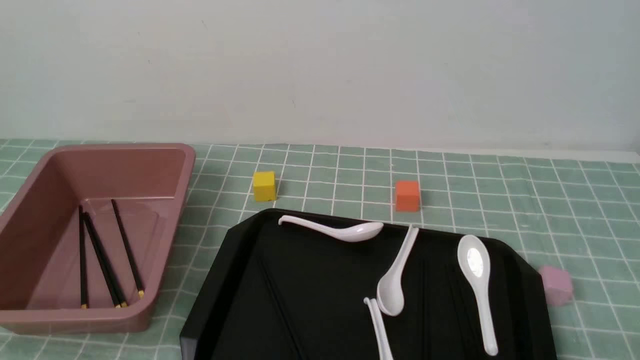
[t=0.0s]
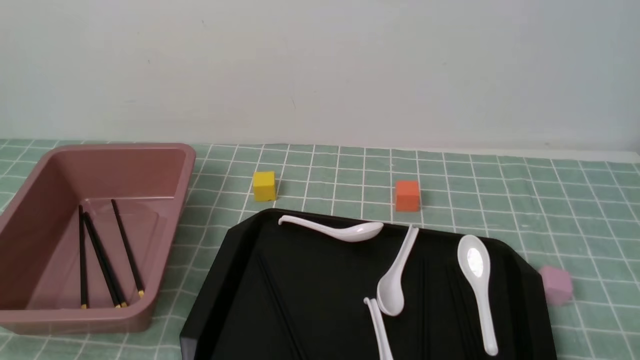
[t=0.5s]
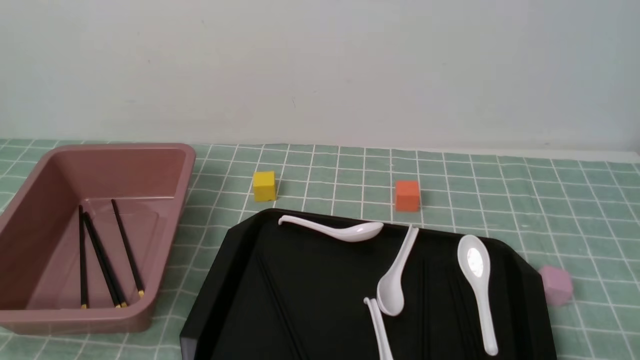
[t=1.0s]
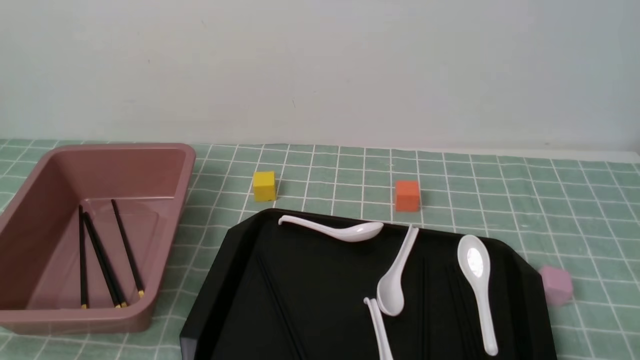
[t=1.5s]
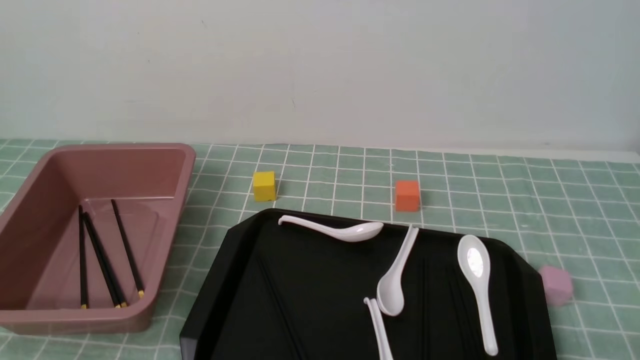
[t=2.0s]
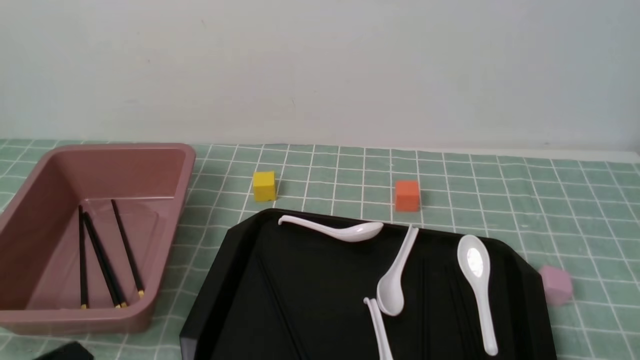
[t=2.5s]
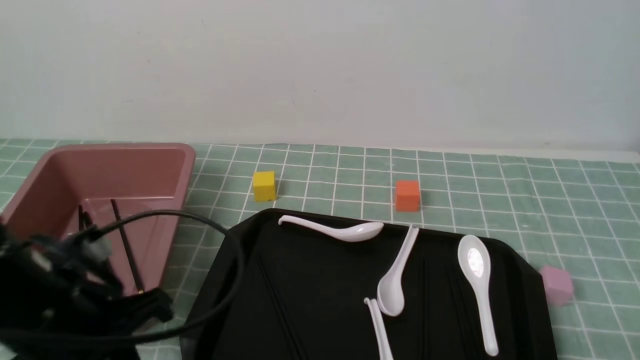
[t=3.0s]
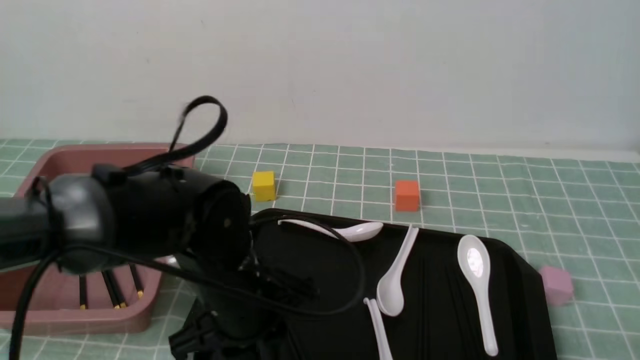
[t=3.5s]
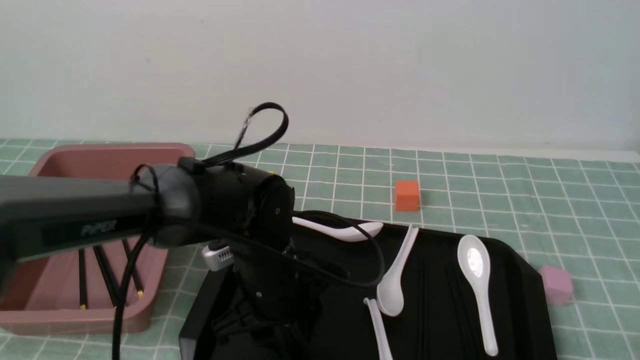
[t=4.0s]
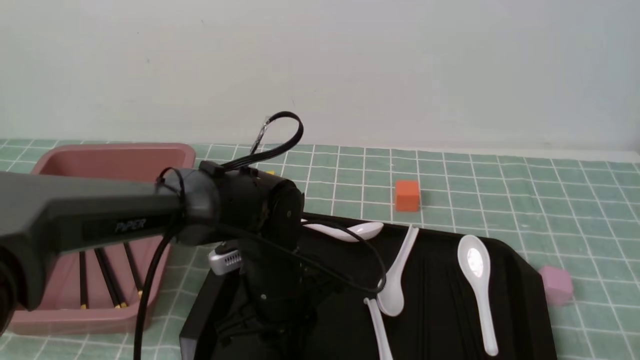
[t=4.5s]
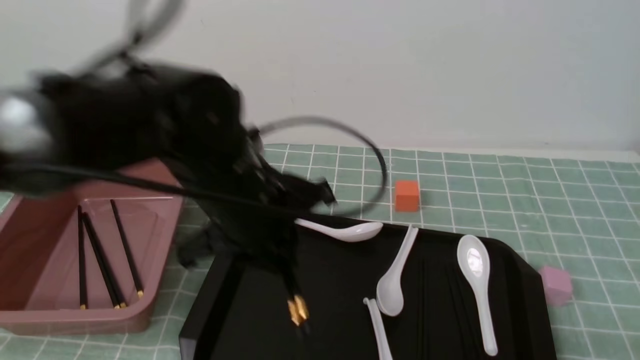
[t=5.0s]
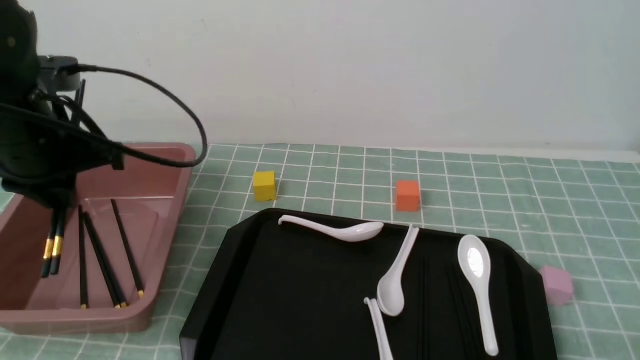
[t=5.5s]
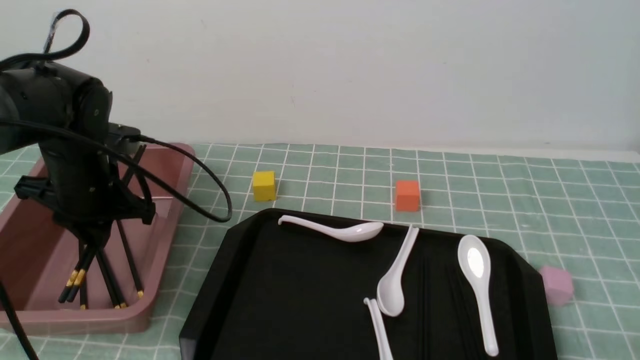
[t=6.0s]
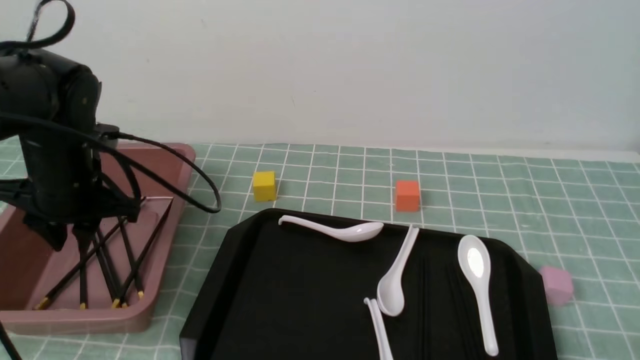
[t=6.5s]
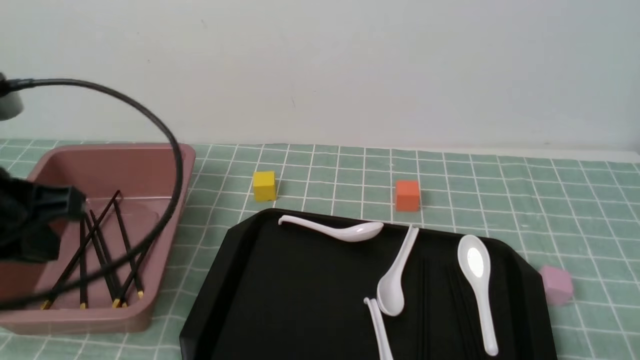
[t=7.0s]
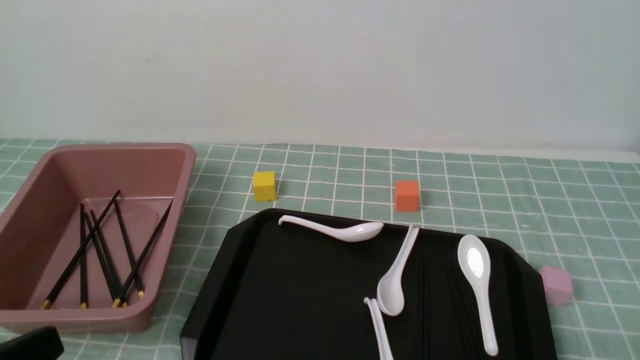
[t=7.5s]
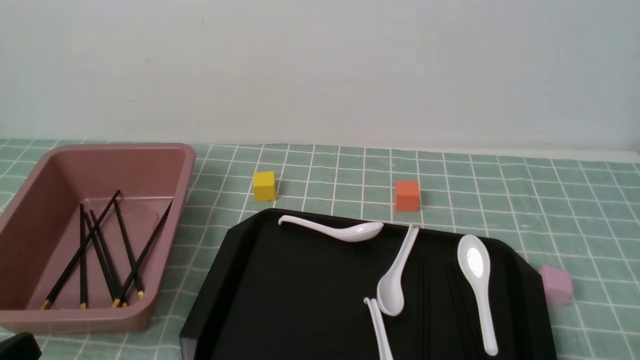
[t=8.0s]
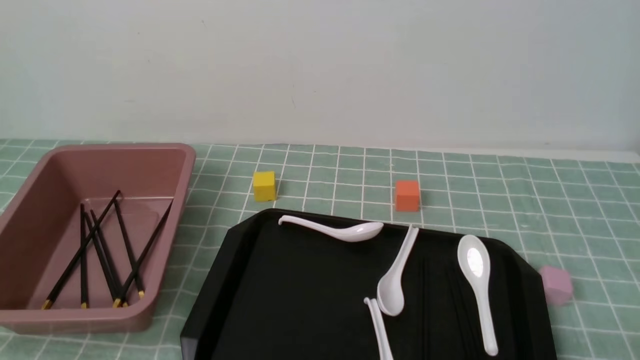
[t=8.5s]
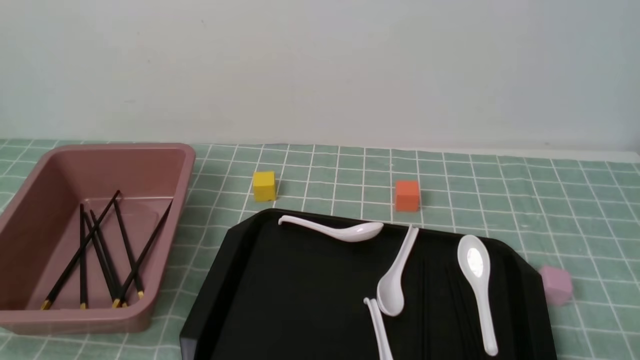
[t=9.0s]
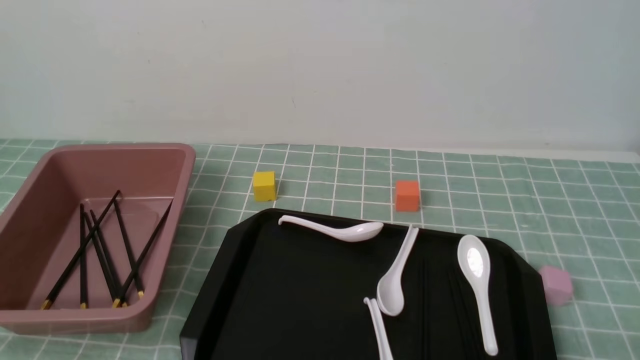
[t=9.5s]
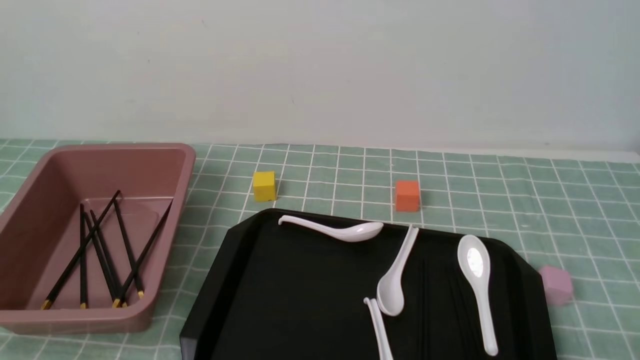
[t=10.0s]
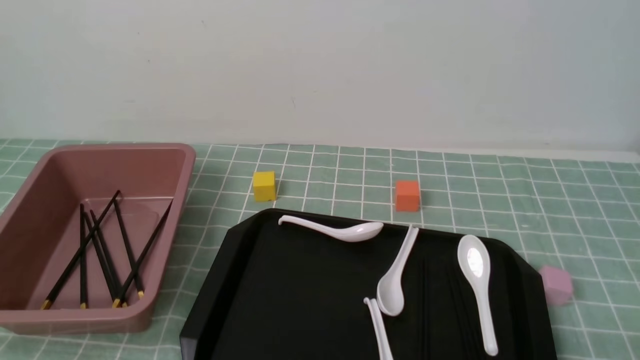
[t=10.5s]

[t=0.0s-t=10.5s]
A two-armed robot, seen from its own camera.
Step, t=0.0s to t=5.0s: use the left arm to grab a pair of chopsticks.
Step, t=5.5s to t=6.5s: use the left arm to put the chopsticks into the lunch box.
t=2.0s to t=4.0s: The left gripper heads forward and to the right, covering some 30 cm, and closes, then reopens.
t=4.0s to t=6.5s: The left gripper heads to the left and upward, covering about 20 cm, and closes up.
t=6.5s to t=8.5s: The left gripper moves backward, some 30 cm, and closes its fingers.
t=8.5s to t=10.5s: Both grippers stay put.

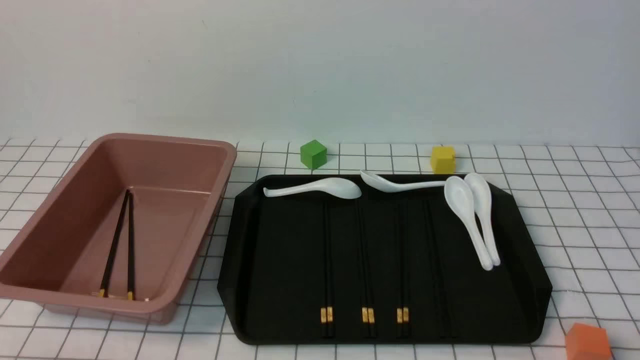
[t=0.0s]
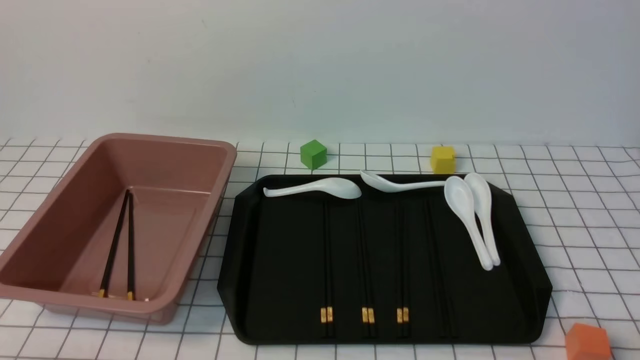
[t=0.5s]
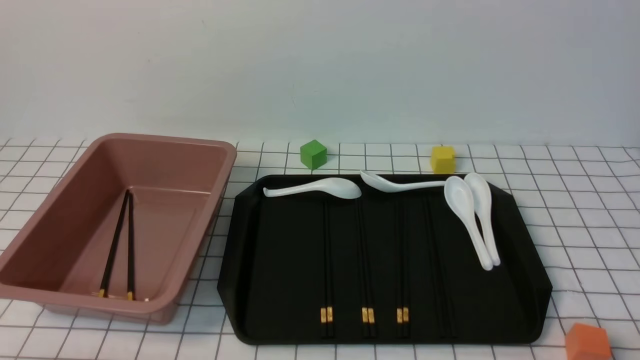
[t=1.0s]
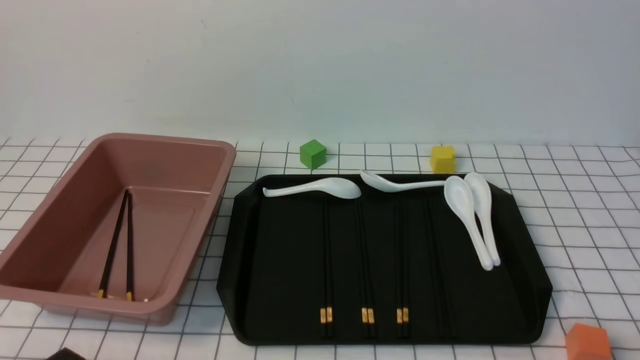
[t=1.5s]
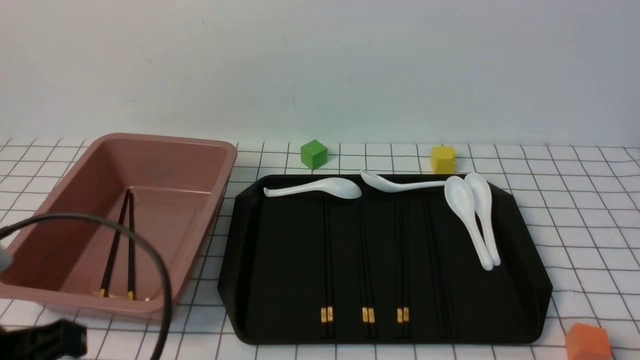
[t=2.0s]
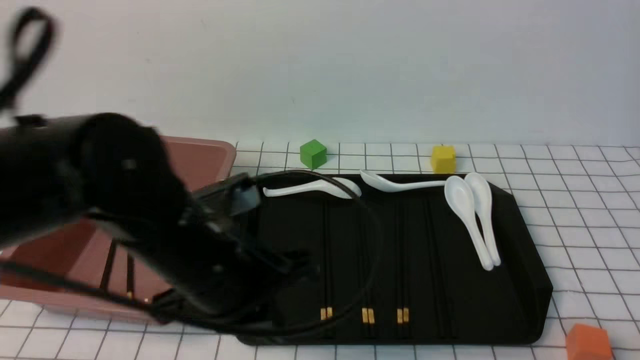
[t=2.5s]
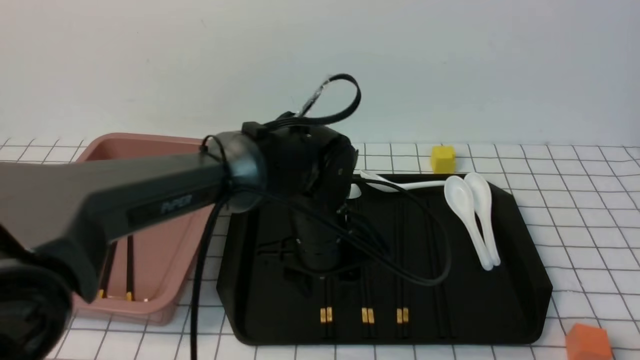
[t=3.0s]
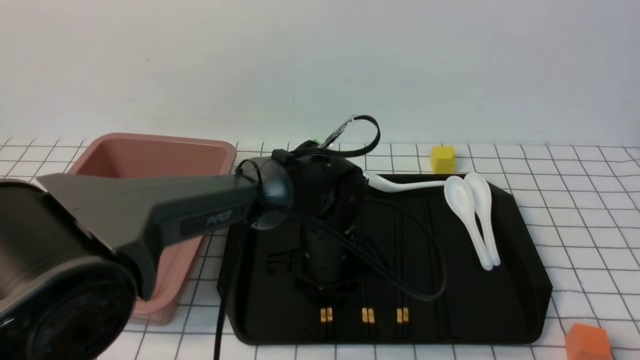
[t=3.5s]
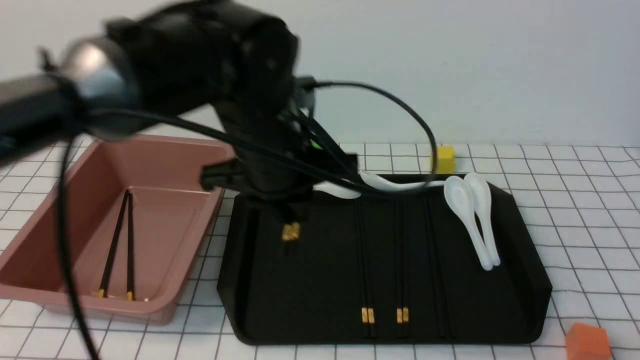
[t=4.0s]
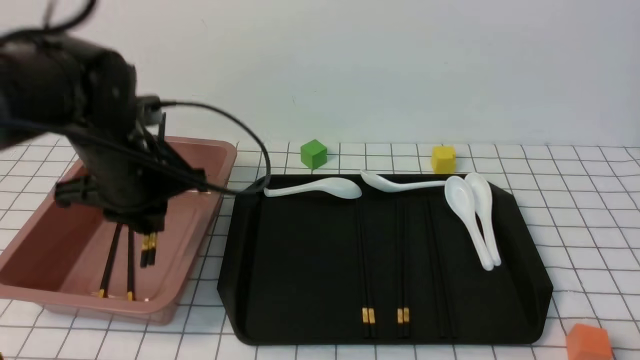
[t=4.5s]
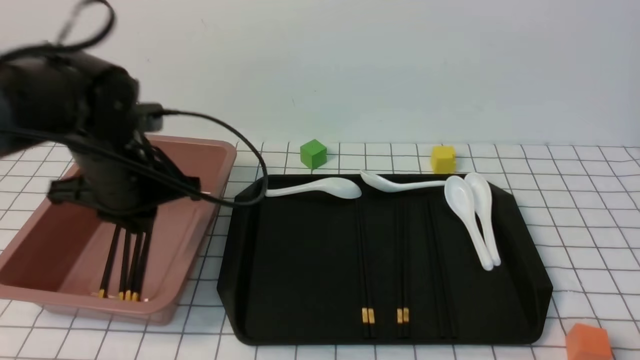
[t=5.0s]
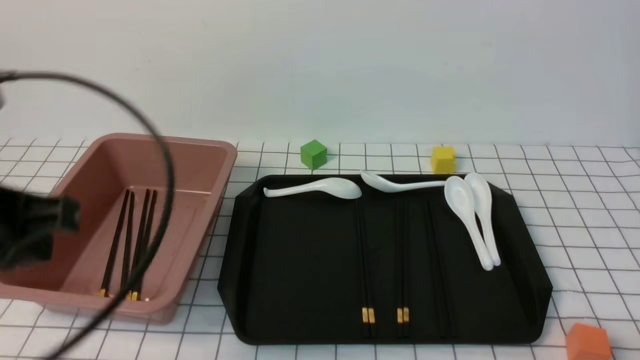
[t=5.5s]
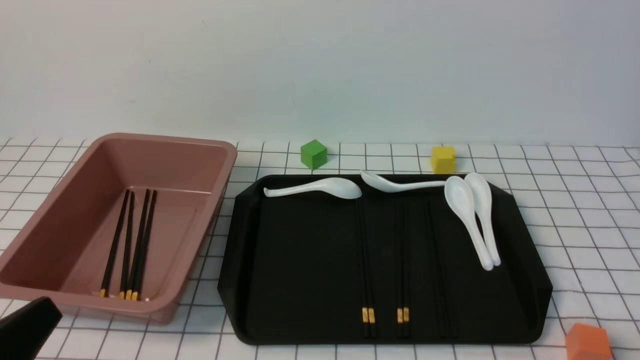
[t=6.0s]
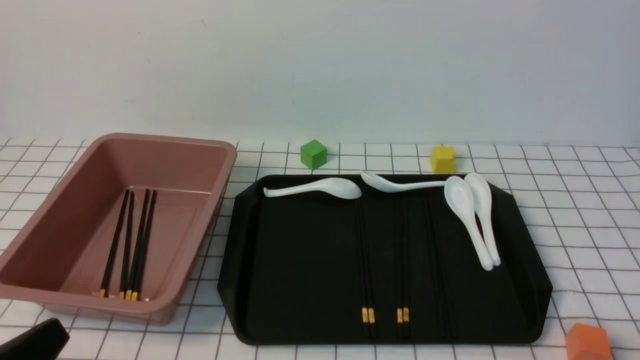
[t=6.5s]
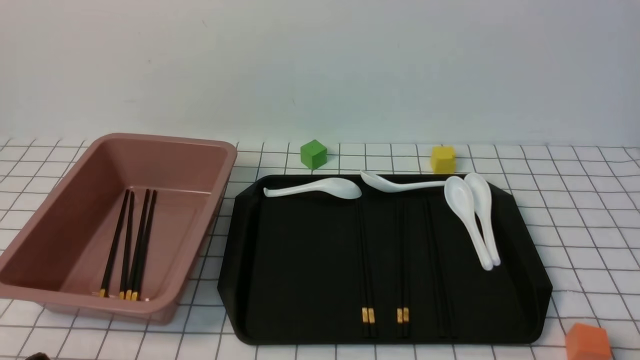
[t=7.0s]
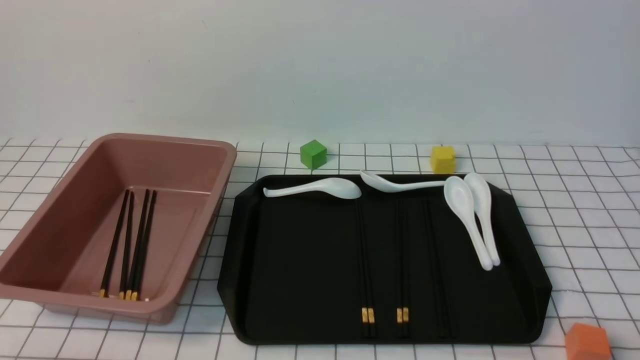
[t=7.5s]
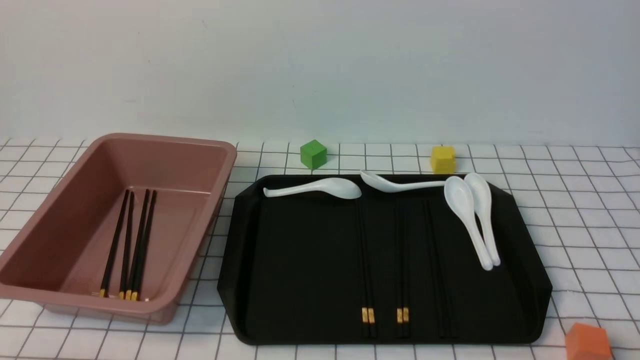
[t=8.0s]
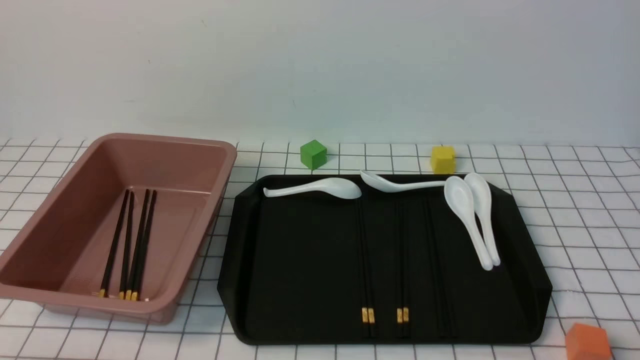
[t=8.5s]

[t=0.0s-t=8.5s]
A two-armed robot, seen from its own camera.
Step, t=0.0s to t=3.5s: use the left arm to grab a pair of chopsticks.
Step, t=4.0s to t=5.0s: use the left arm to put the chopsticks into the lunch box.
t=0.0s to t=2.0s: The left gripper heads upward and forward, covering approximately 15 cm.
t=2.0s to t=4.0s: The left gripper shifts roughly 25 cm forward and to the right, and opens.
t=4.0s to t=6.5s: The left gripper moves backward and to the left, about 30 cm, and closes its fingers.
t=6.5s to t=8.5s: The left gripper travels downward by approximately 5 cm.

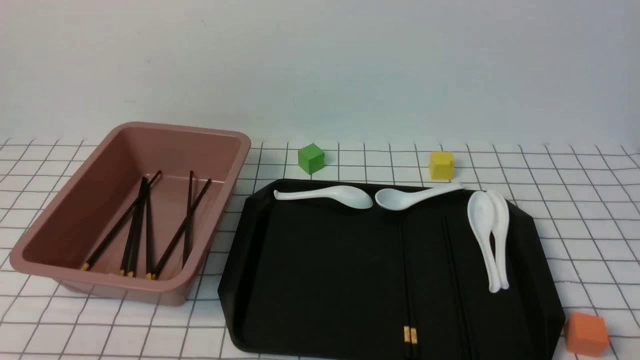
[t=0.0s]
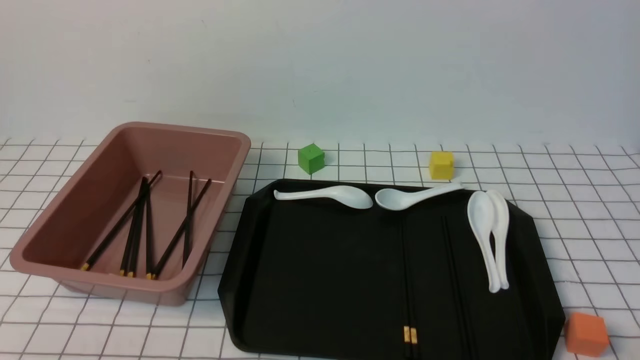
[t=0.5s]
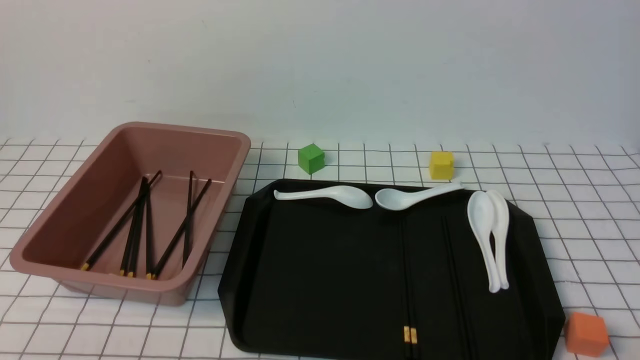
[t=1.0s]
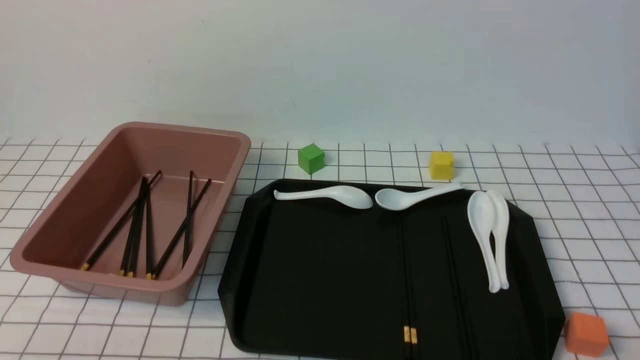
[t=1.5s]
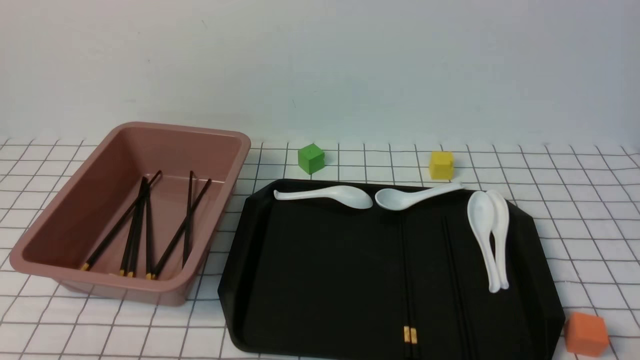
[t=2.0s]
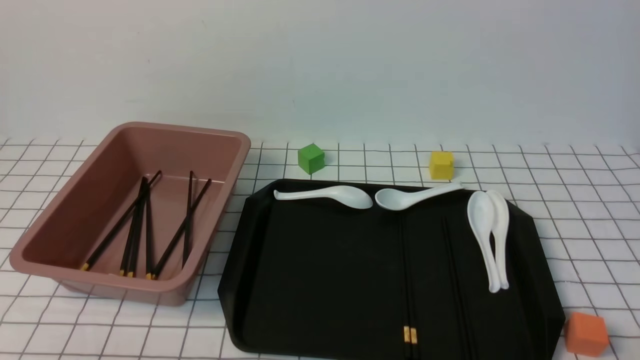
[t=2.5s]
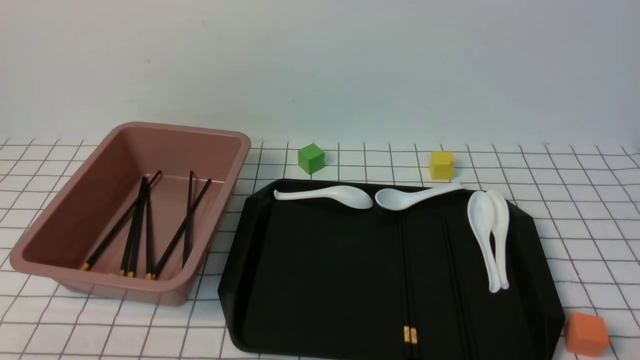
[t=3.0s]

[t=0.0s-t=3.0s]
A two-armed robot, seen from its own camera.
t=0.0s to t=1.5s: The two grippers keep their place.
